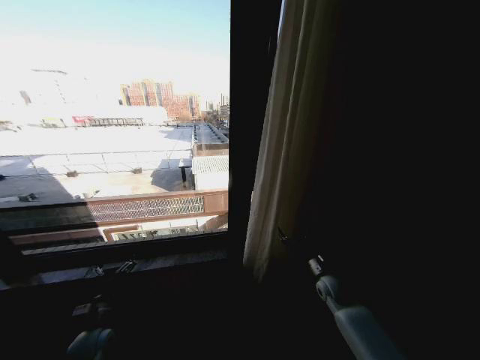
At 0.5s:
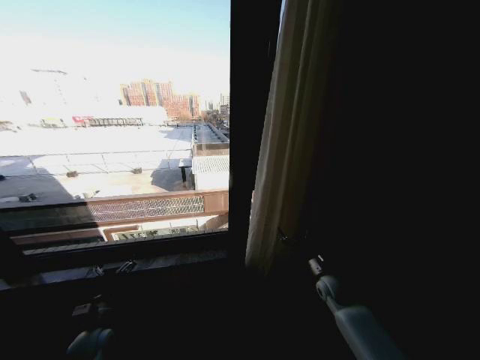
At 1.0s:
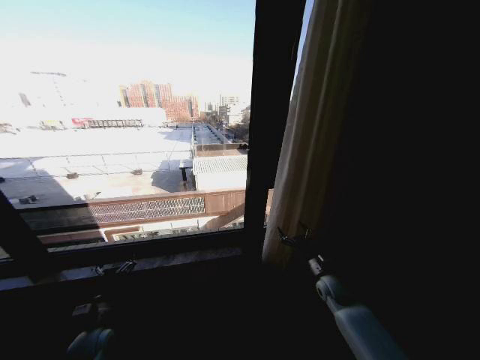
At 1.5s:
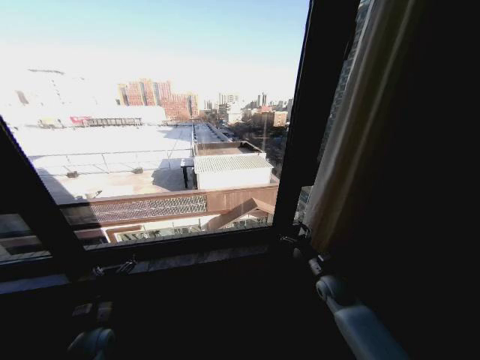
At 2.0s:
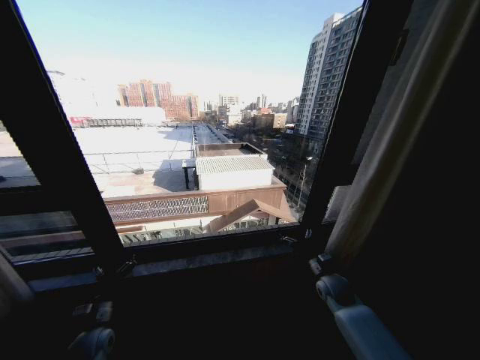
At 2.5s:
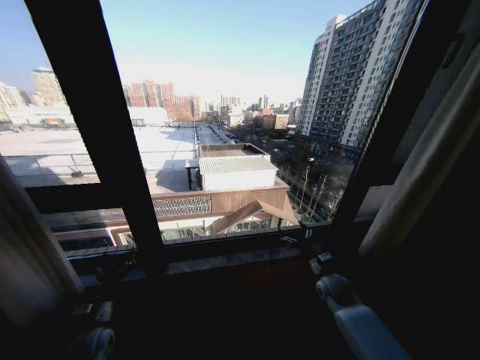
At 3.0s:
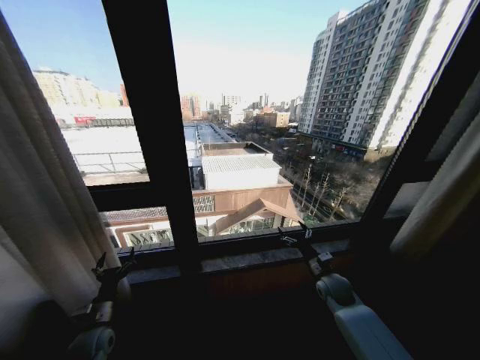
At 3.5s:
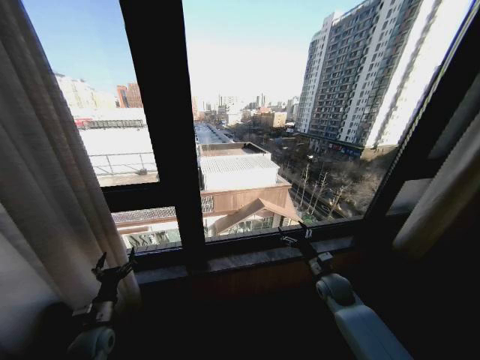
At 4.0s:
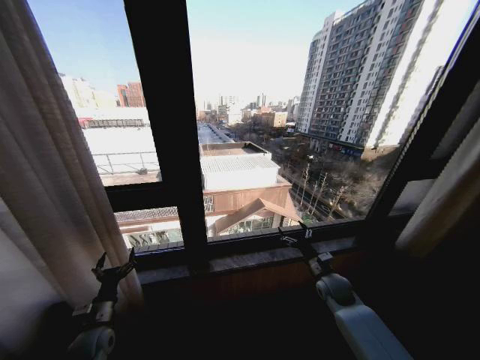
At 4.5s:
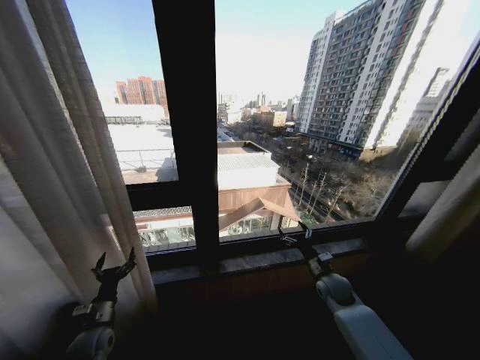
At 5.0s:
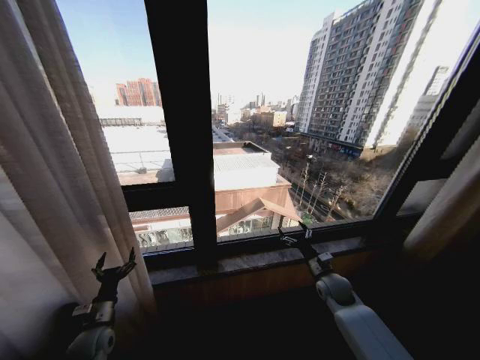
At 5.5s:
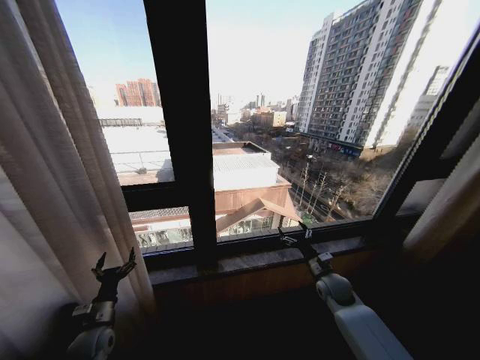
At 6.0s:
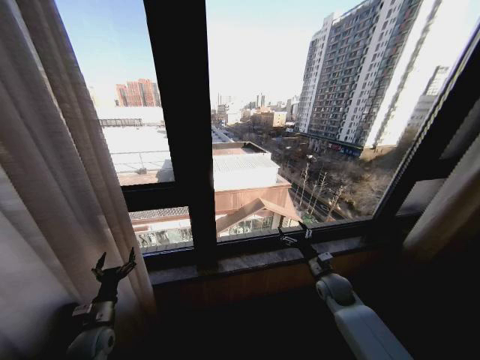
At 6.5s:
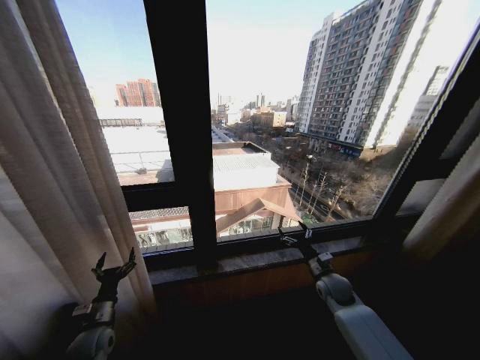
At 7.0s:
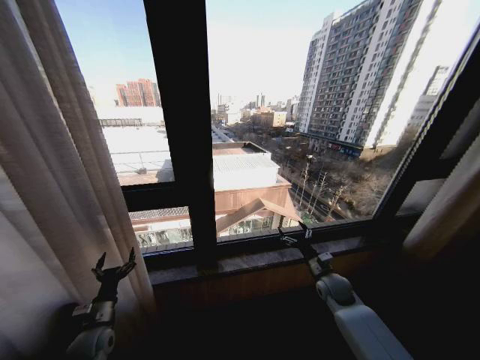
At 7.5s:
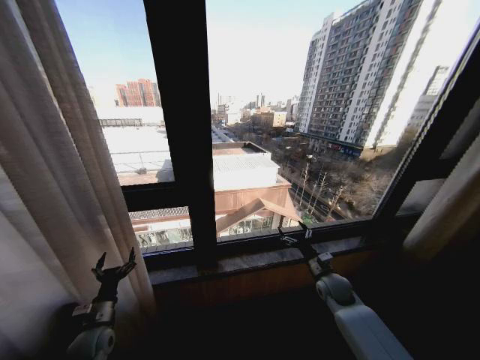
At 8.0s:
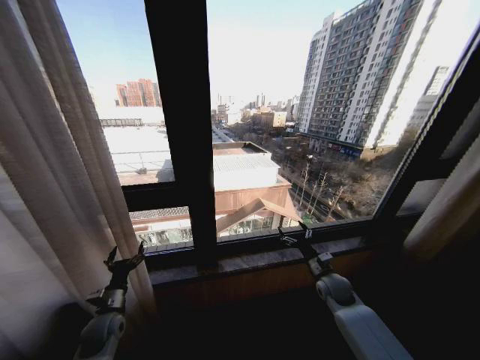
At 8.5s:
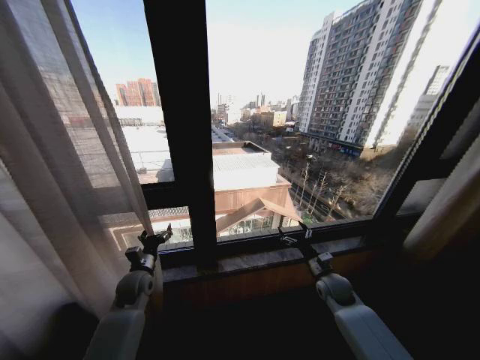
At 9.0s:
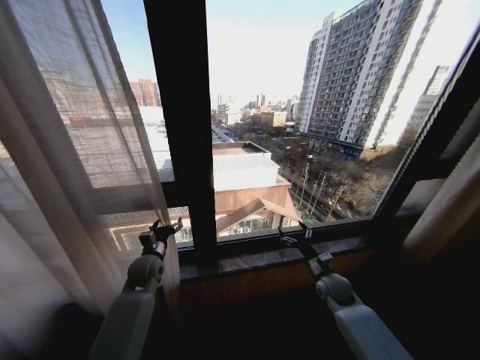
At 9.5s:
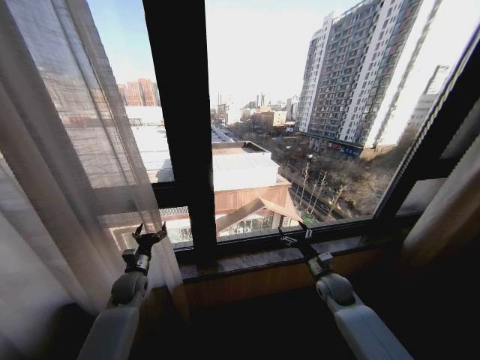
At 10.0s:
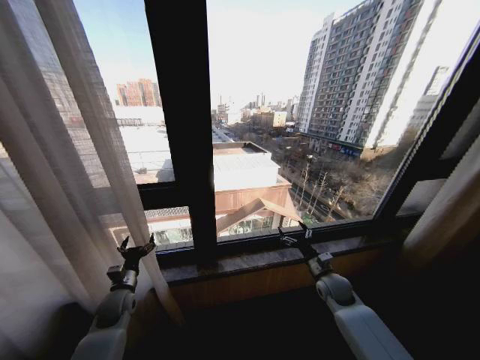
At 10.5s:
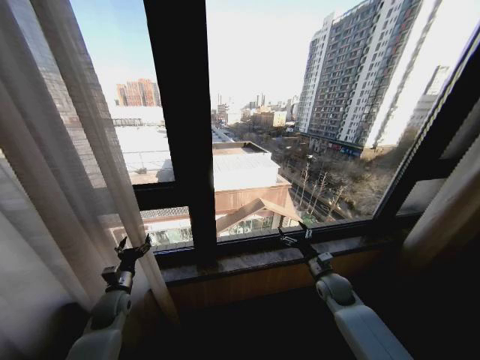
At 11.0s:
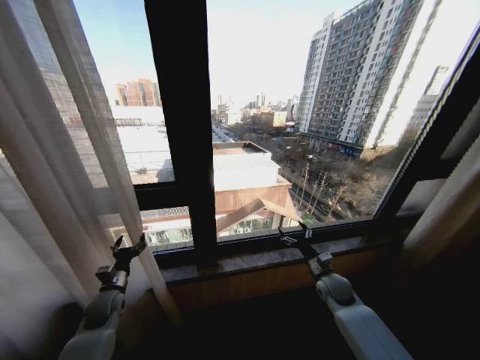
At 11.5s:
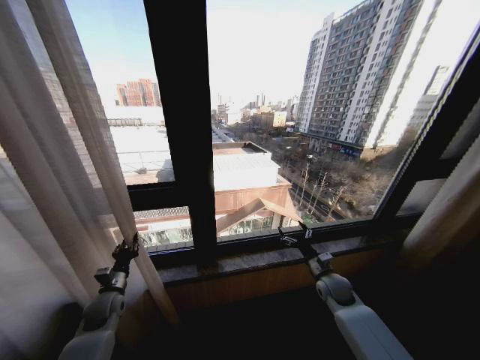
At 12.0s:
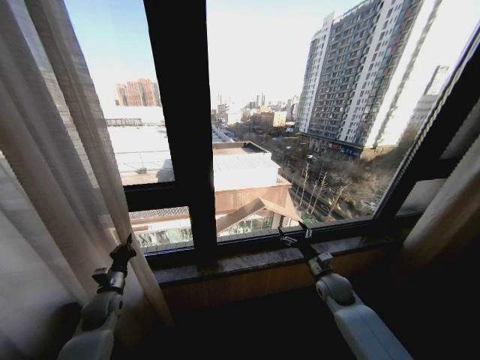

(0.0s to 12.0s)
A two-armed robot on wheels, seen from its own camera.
Task of the whole recording: Open the curtains by pulling them apart, changing their state from closed to fully open.
6.0s - 8.0s: The grippers make only small movements.
8.0s - 10.0s: The left gripper travels forward by some 5 cm.
10.0s - 12.0s: The left gripper closes up.

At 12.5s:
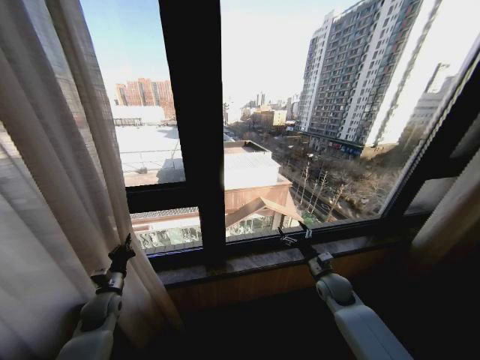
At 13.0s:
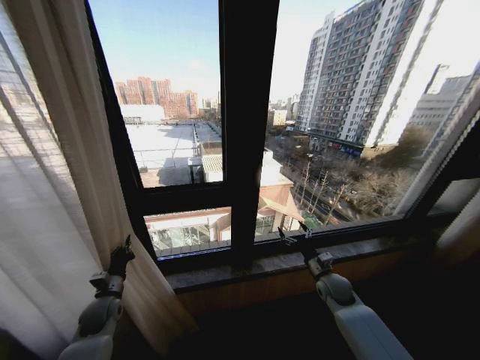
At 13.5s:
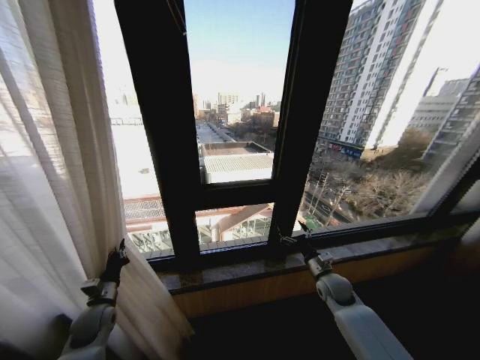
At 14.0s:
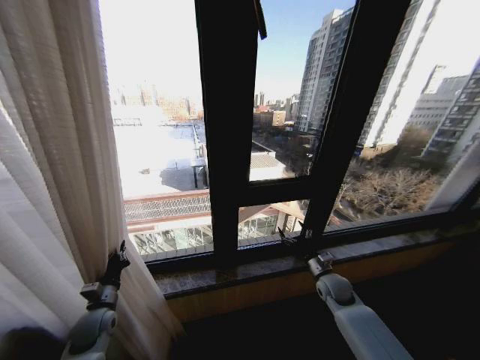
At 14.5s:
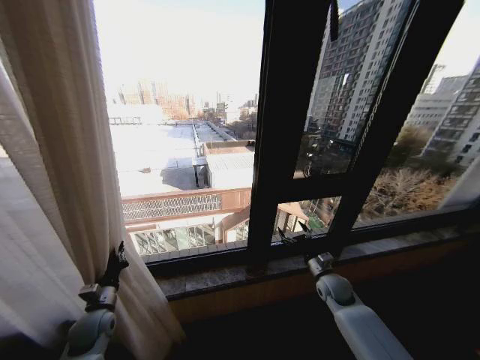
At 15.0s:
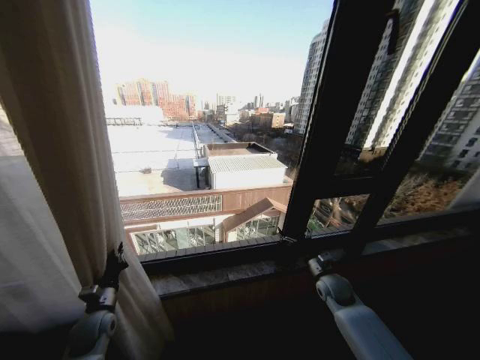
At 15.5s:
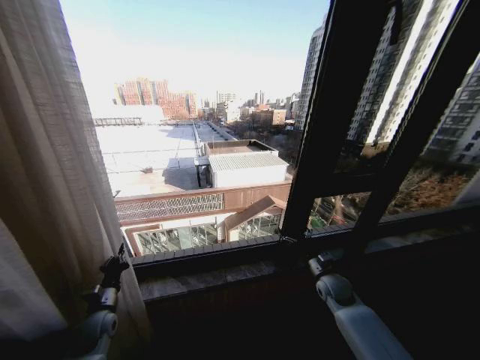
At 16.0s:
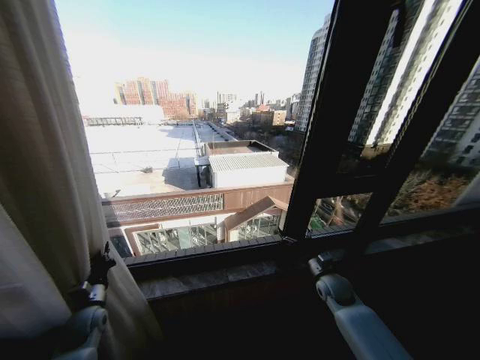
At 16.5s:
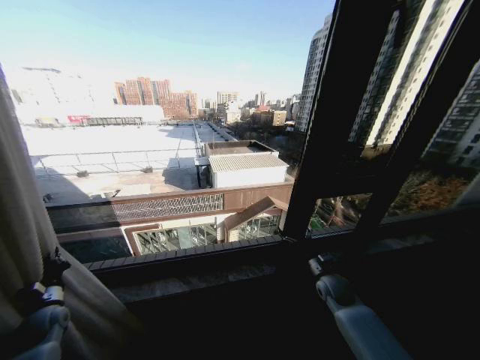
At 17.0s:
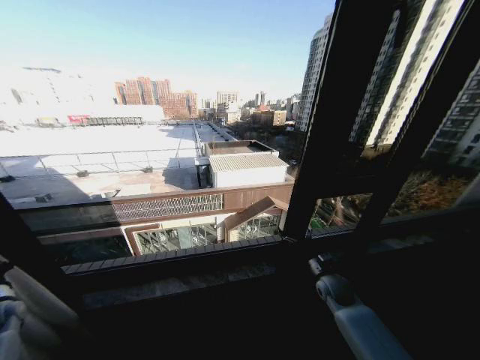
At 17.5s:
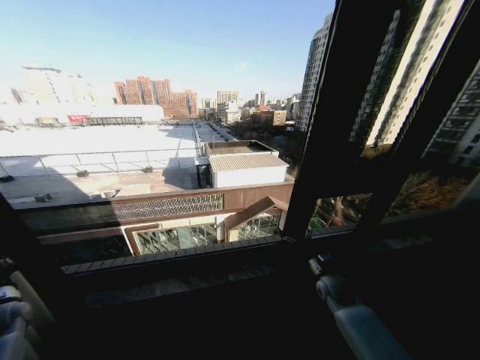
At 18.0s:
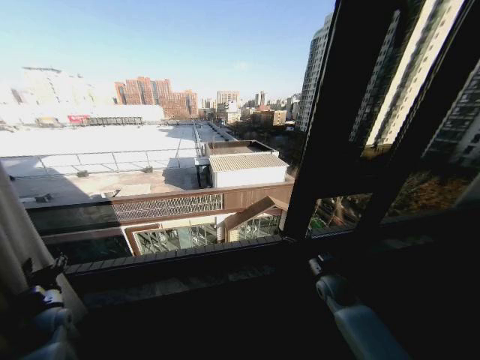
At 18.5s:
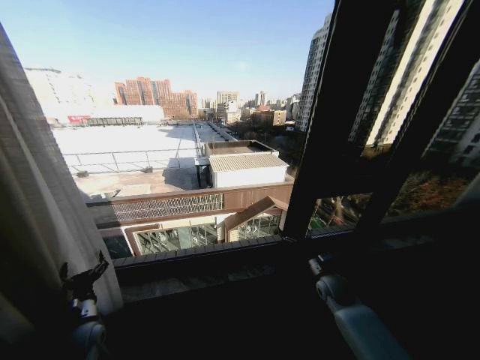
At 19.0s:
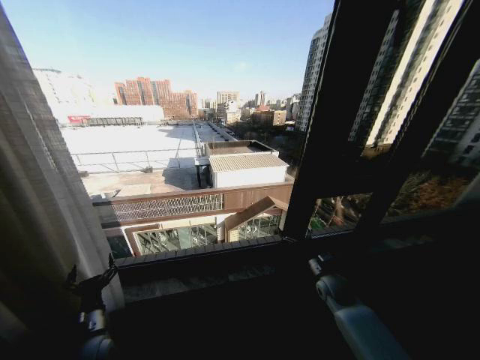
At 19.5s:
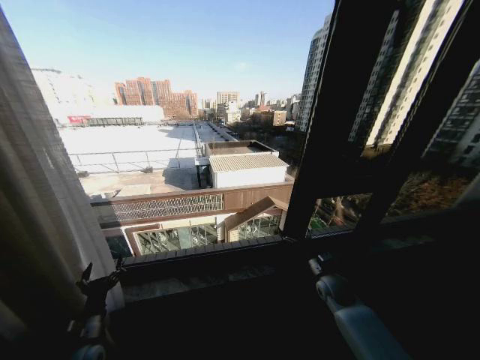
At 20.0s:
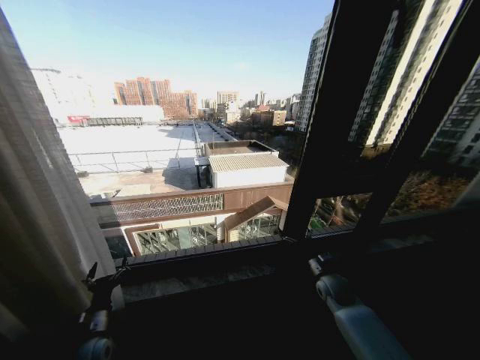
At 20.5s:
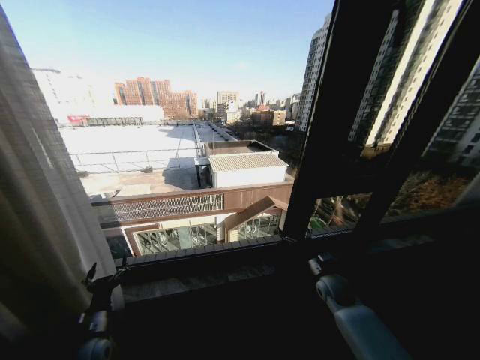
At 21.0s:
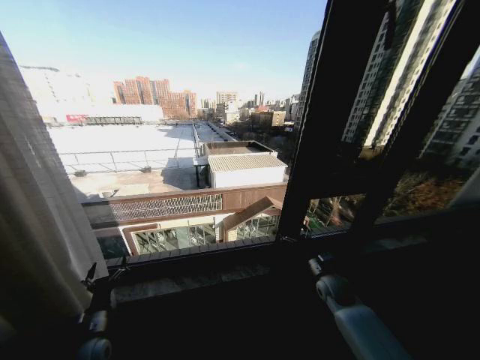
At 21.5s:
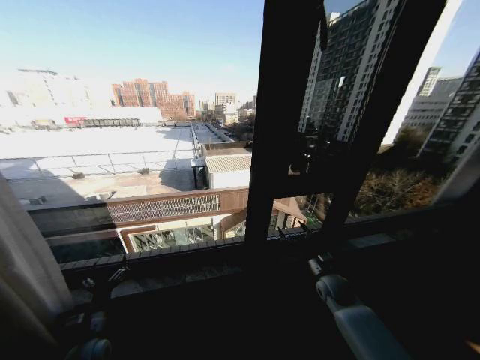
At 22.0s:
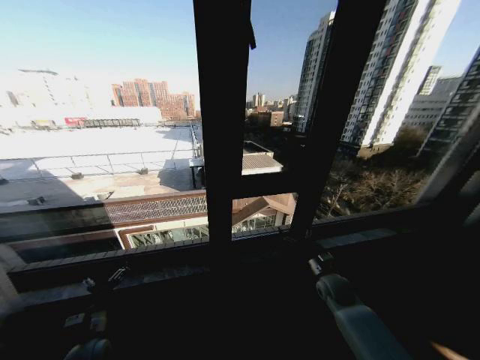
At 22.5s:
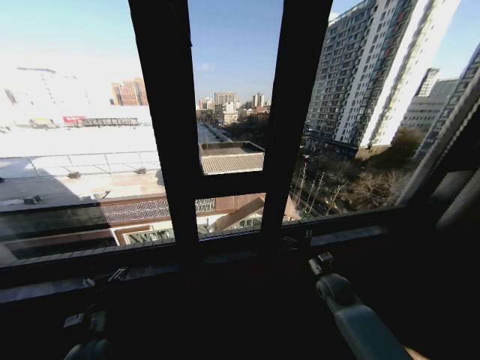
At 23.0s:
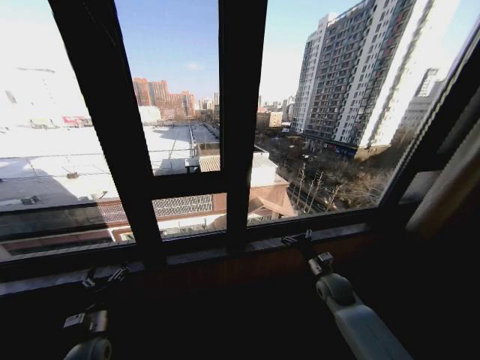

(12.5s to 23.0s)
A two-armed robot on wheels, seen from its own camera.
Task of the whole recording: Open the curtains by pulling them apart, changing their state from closed to fully open.
14.5s - 16.5s: The left gripper is displaced to the left by some 15 cm.
16.5s - 19.0s: The left gripper shifts roughly 15 cm to the right and backward, and opens.
19.0s - 21.0s: The grippers stay close to where they were, moving slightly.

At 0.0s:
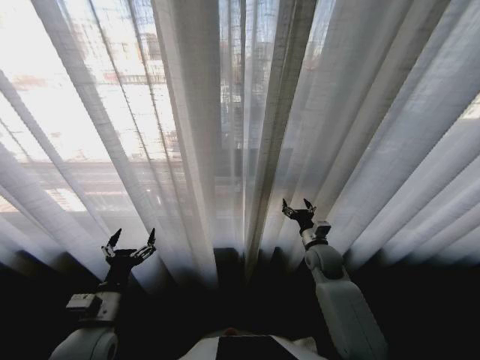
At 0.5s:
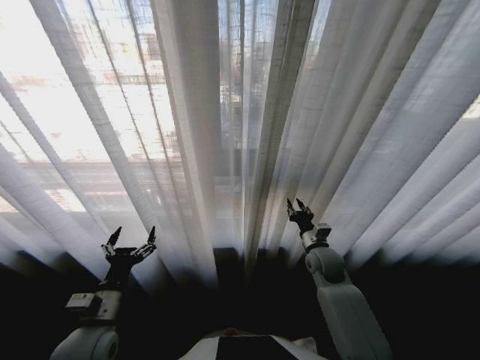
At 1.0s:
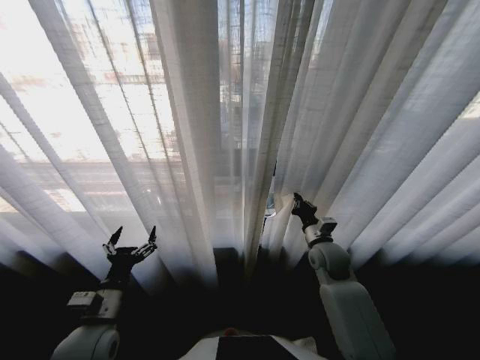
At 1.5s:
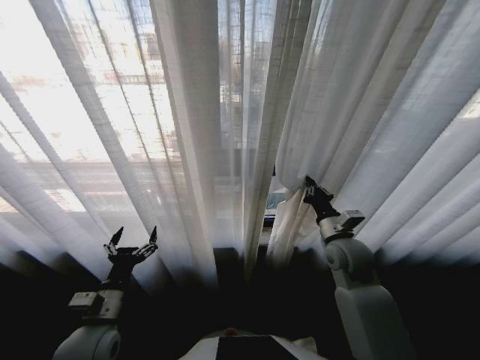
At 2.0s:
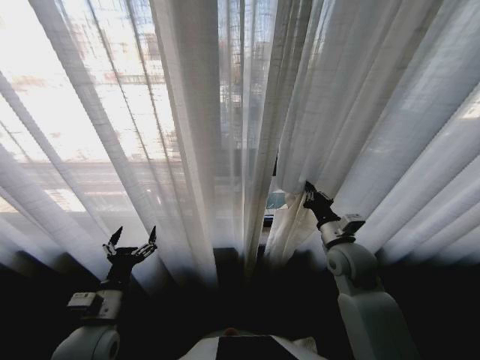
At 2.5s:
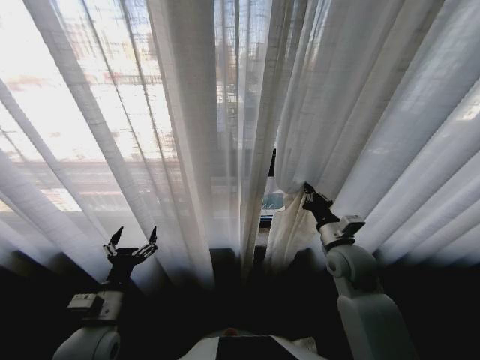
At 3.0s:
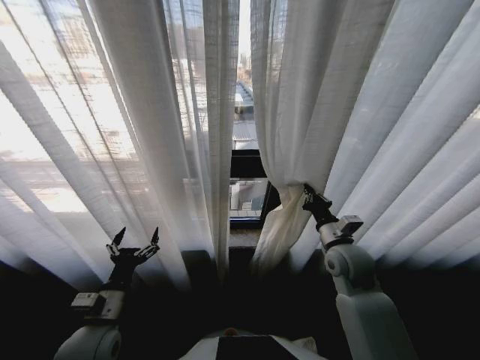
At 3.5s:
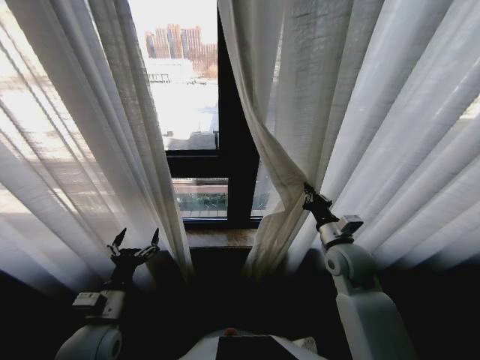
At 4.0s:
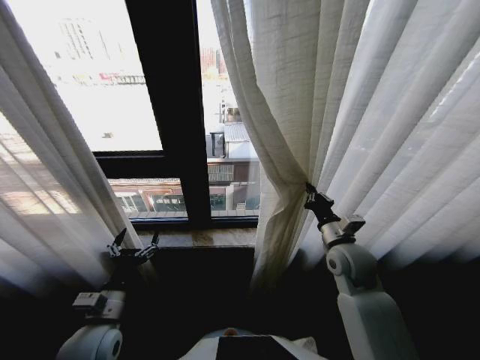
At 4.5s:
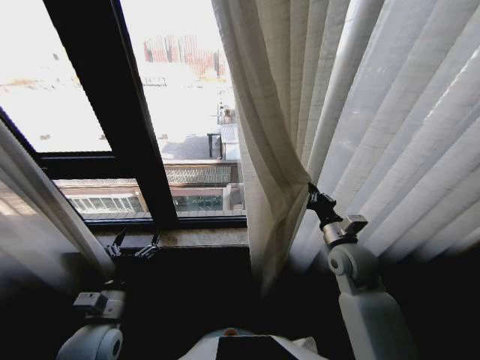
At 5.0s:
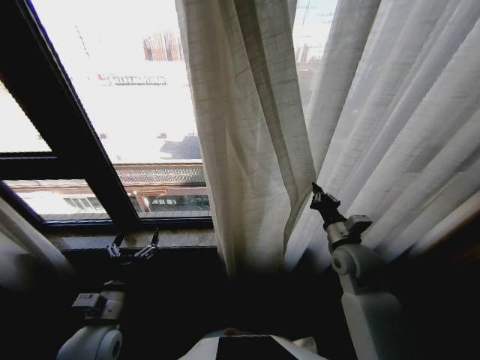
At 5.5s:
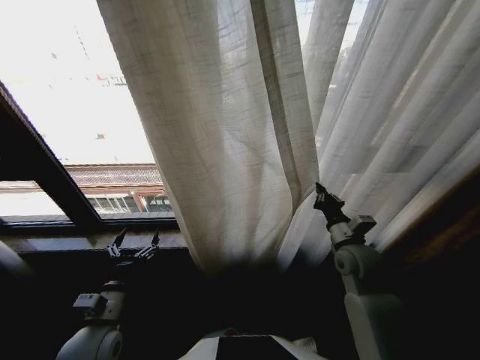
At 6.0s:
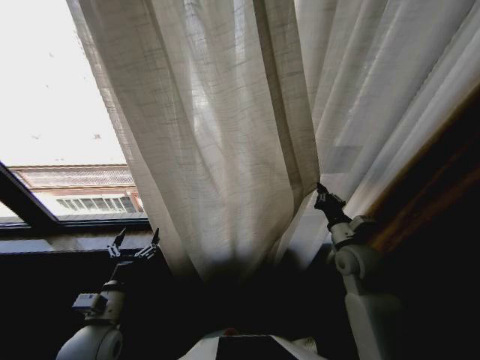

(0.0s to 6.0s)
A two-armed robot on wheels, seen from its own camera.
Task of the whole recording: Open the curtains by pulling them apart, changing their state from closed to fully open.
0.0s - 2.0s: The right gripper is displaced upward by roughly 10 cm, and closes up.
